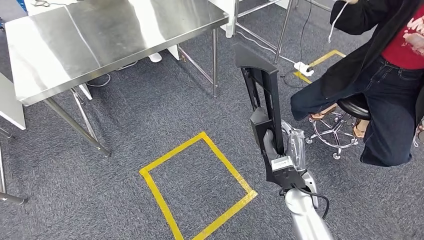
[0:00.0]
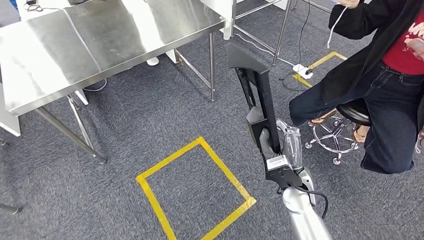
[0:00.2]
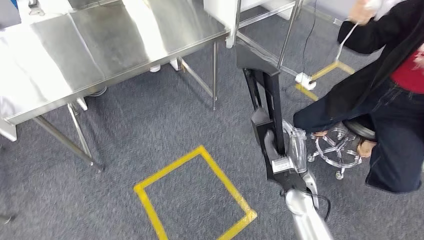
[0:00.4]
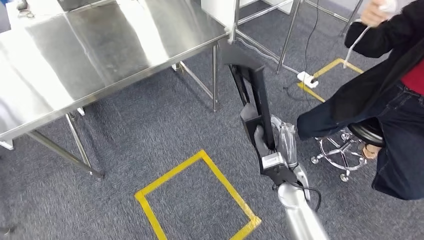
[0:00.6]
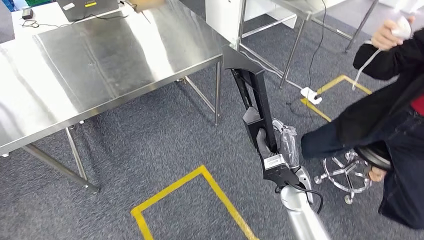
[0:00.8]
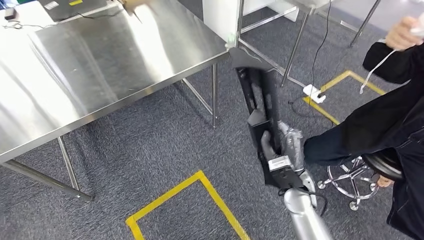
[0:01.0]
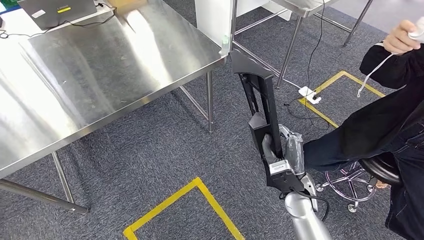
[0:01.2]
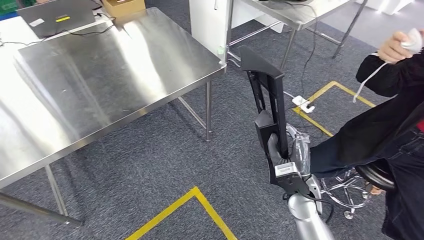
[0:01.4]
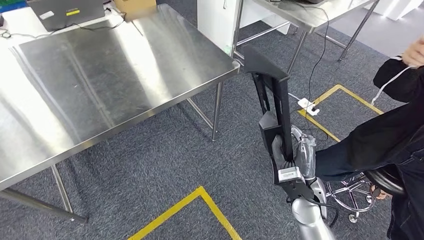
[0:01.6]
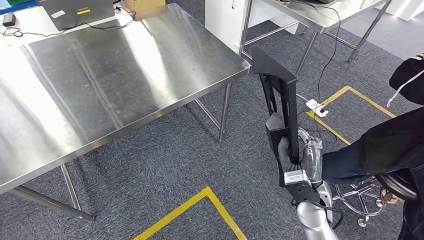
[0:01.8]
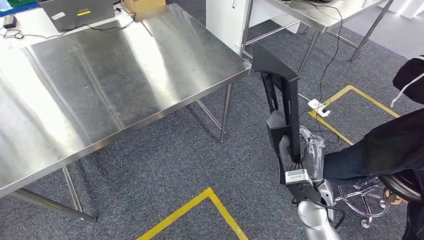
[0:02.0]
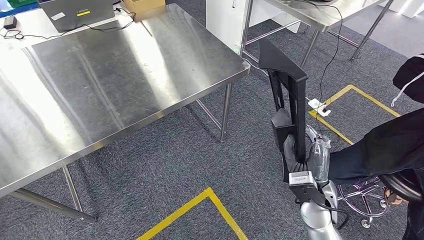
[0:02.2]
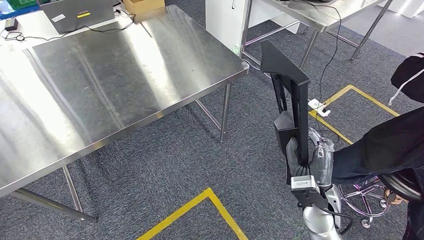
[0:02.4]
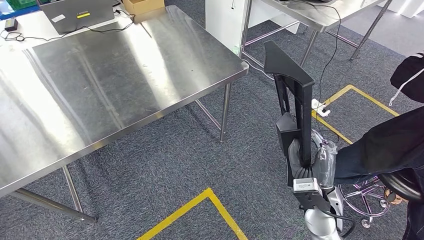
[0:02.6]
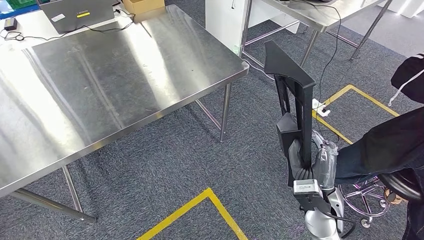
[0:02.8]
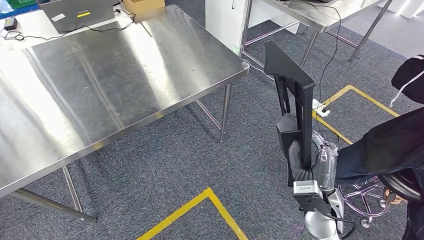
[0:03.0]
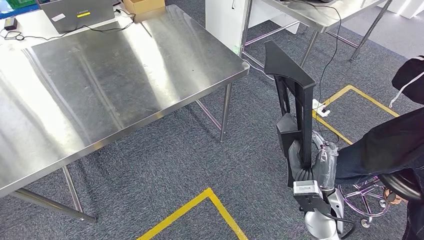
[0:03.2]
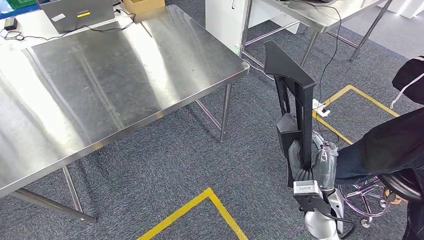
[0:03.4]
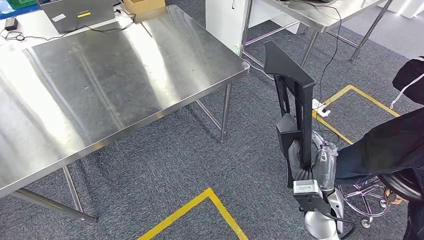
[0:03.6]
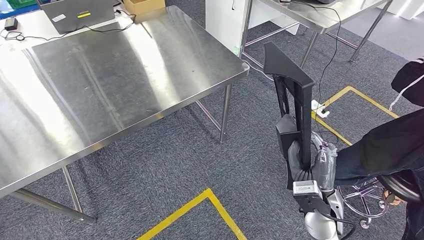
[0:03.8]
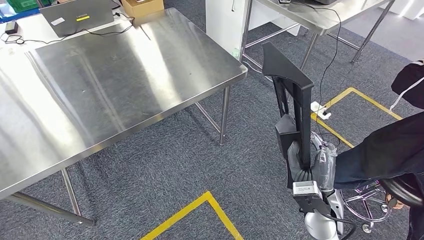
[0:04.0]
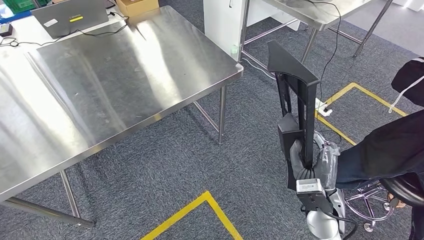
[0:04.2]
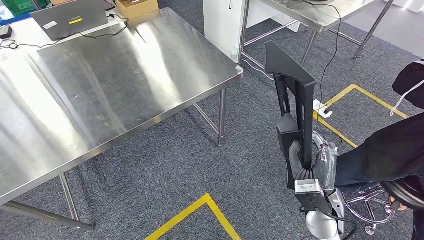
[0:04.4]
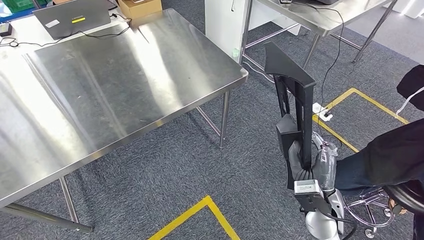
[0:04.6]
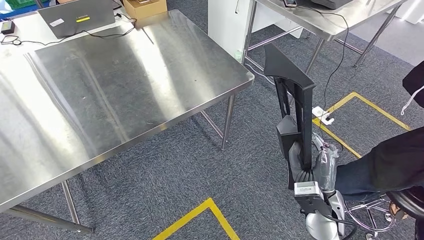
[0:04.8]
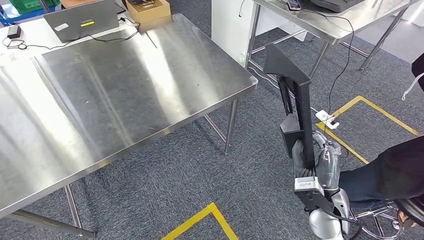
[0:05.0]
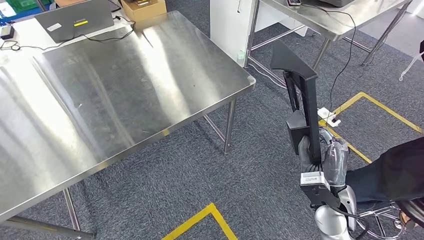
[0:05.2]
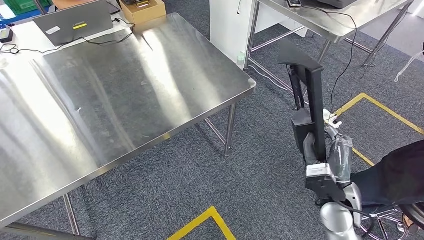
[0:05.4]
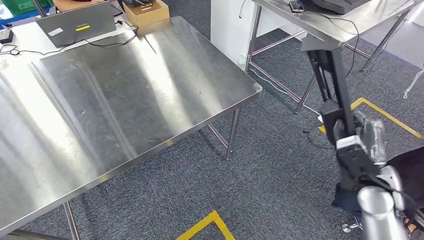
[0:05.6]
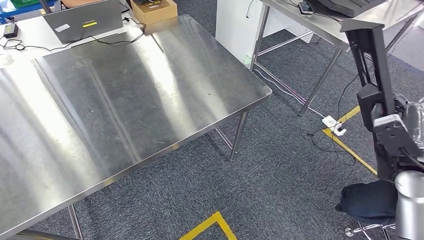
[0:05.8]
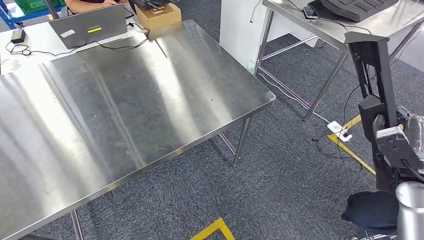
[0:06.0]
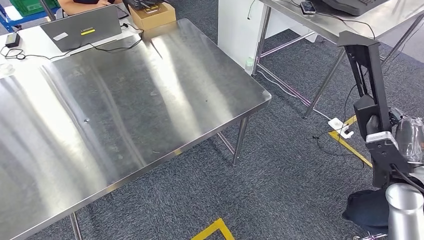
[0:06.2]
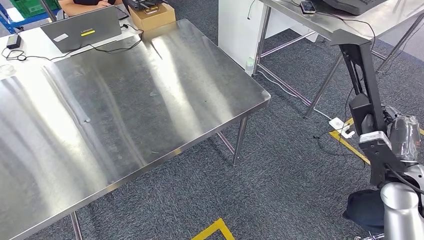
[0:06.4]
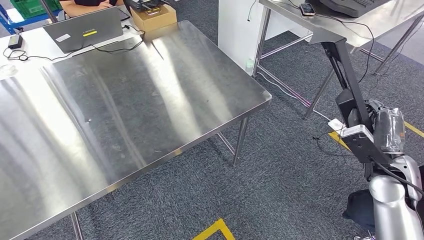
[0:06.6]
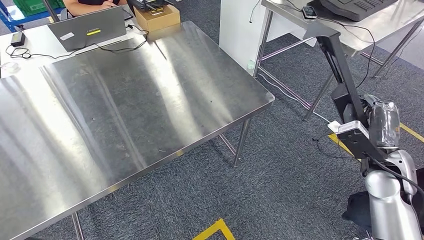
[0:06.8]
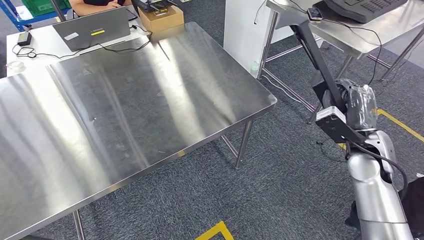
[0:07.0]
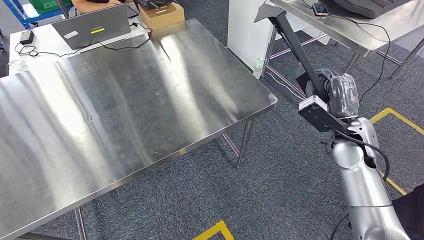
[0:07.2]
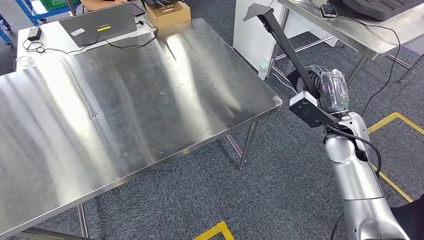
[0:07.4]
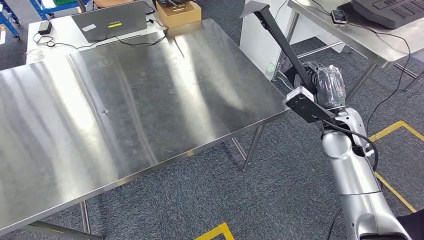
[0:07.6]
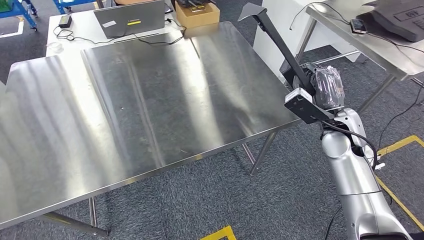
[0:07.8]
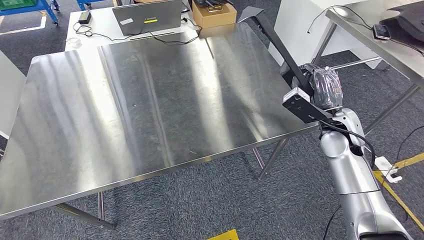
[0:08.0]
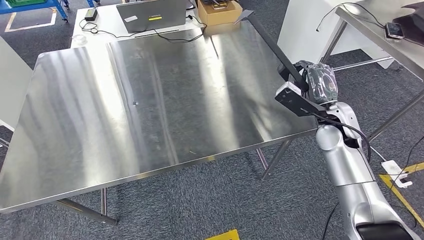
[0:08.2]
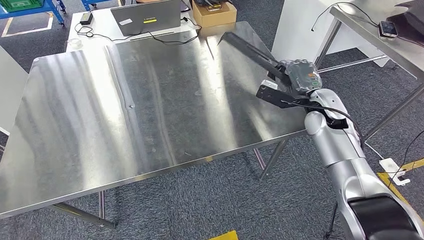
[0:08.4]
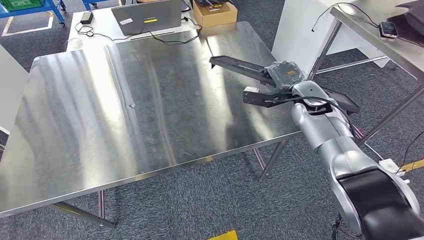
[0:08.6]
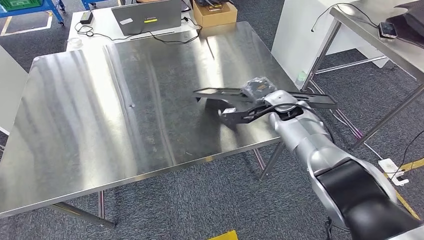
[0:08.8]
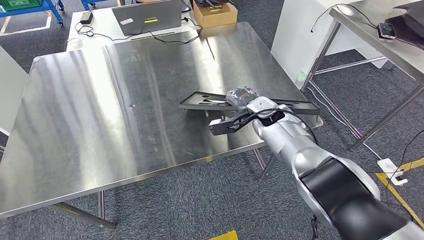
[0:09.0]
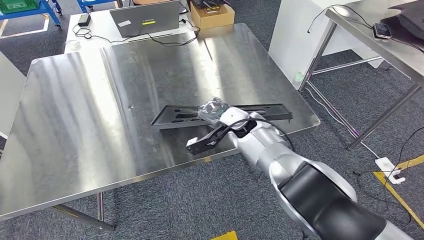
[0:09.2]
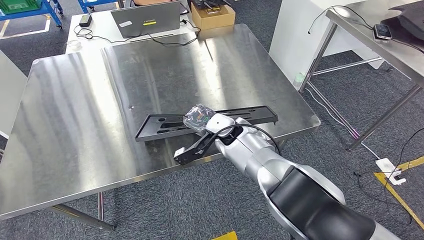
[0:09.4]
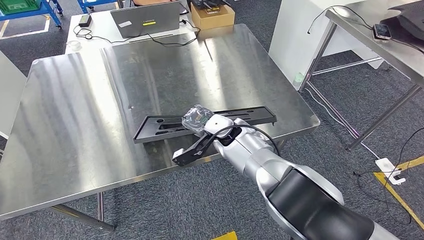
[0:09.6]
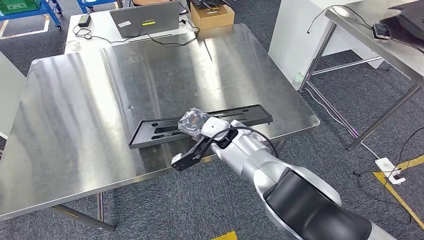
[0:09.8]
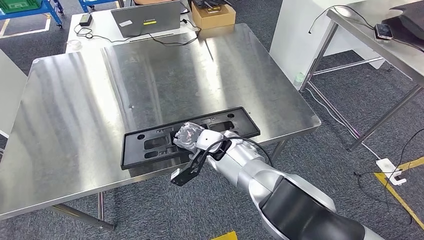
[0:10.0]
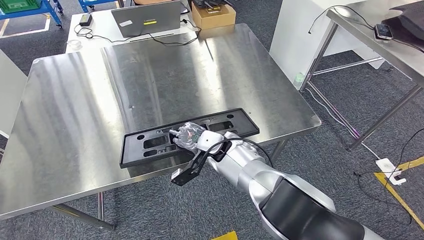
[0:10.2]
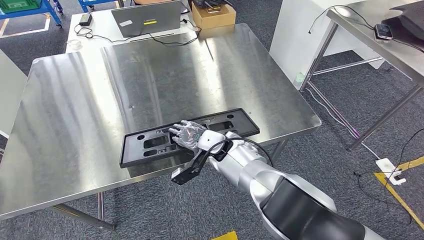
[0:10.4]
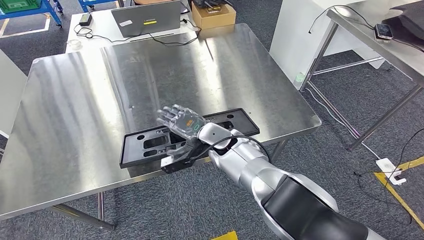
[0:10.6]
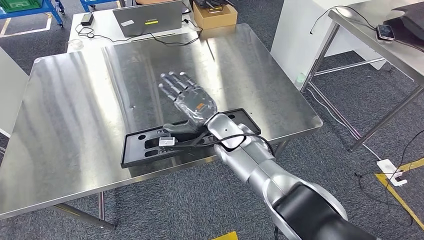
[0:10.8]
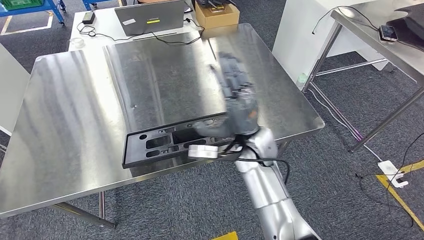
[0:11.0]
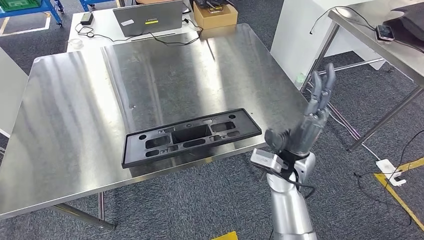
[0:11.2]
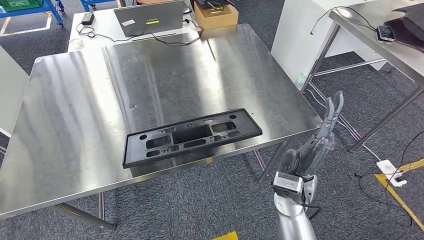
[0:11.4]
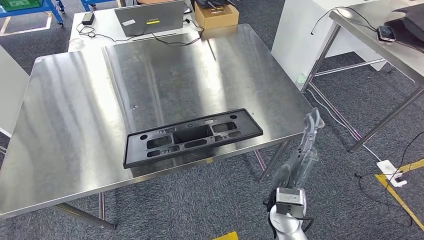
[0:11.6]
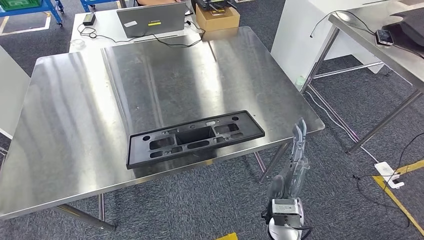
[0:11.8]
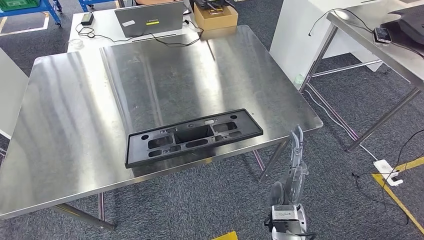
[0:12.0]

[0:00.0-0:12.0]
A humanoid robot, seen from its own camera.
Step, 0:00.0 to 0:05.8: Move the large material to the workbench.
0:03.0 to 0:04.4: Both hands stay put.
0:10.4 to 0:12.0: The right hand heads backward and to the right, covering some 25 cm.

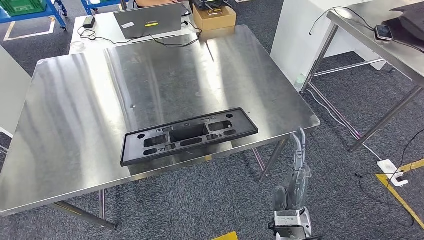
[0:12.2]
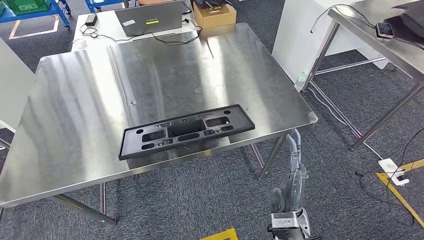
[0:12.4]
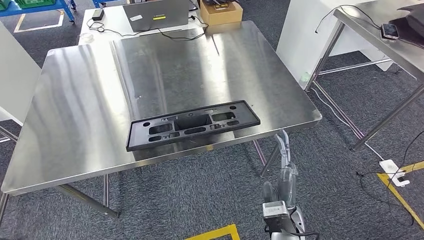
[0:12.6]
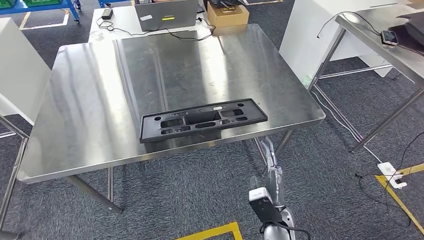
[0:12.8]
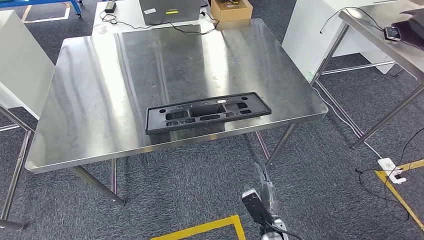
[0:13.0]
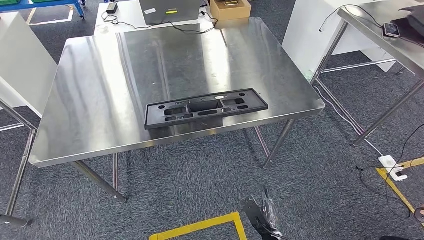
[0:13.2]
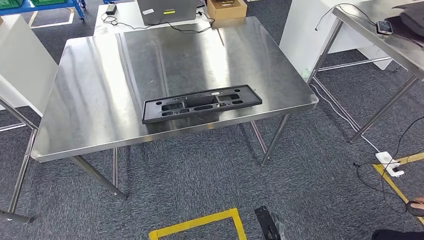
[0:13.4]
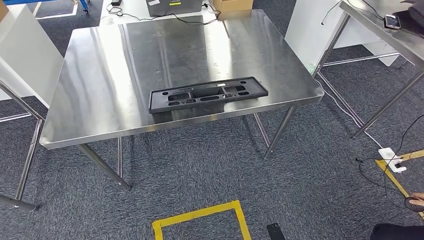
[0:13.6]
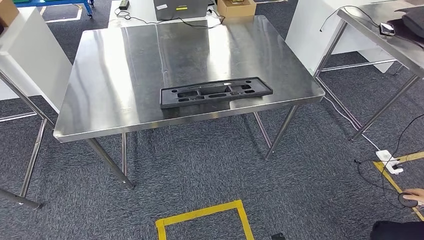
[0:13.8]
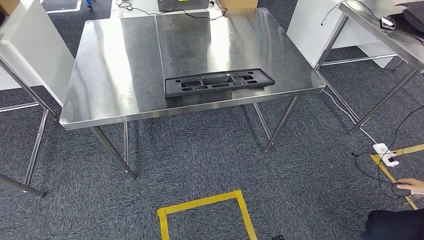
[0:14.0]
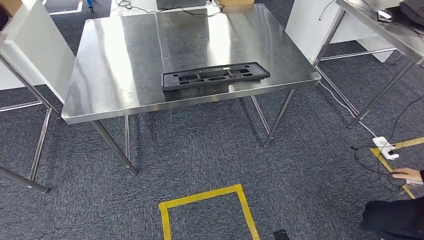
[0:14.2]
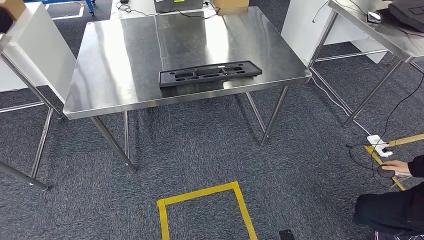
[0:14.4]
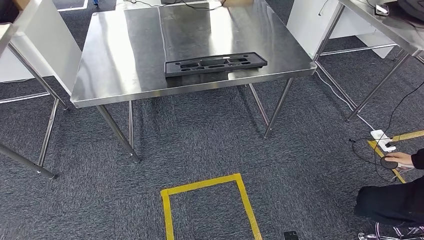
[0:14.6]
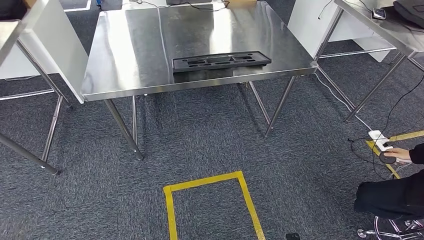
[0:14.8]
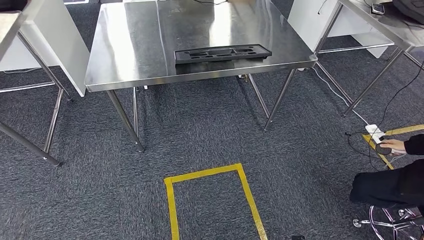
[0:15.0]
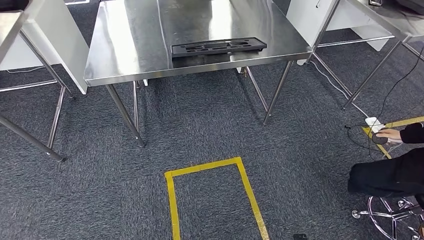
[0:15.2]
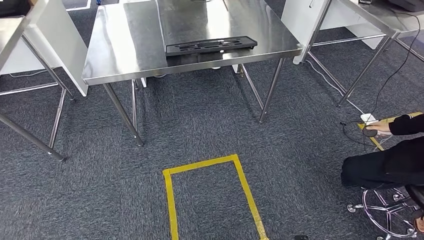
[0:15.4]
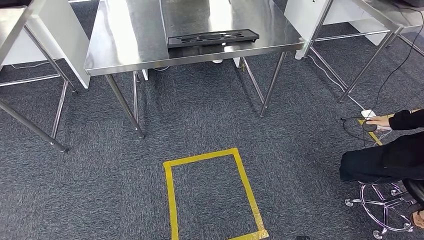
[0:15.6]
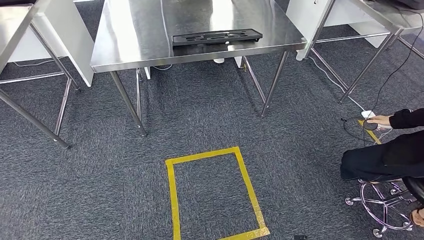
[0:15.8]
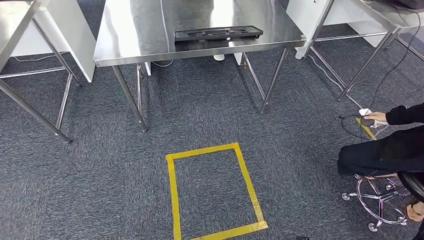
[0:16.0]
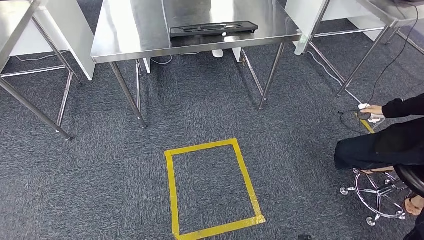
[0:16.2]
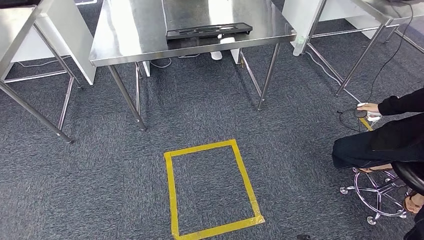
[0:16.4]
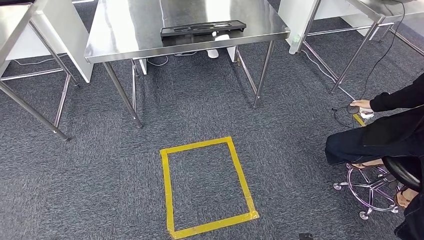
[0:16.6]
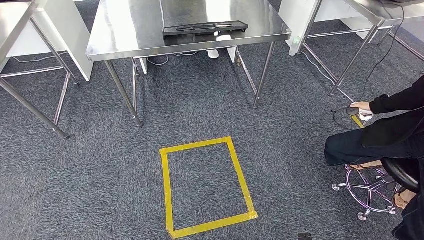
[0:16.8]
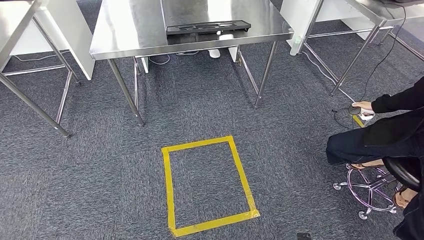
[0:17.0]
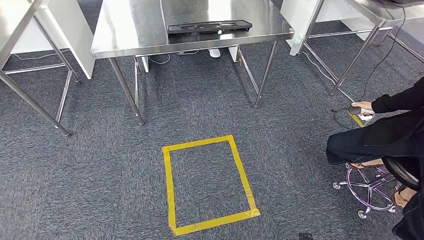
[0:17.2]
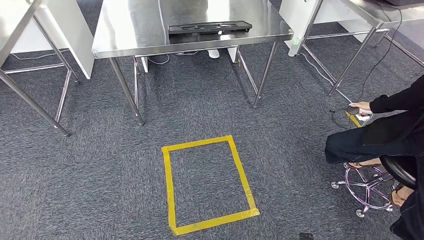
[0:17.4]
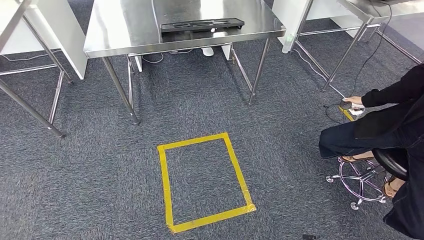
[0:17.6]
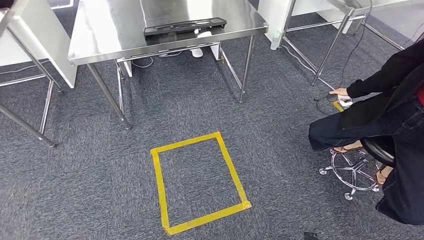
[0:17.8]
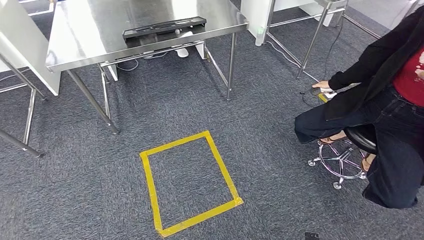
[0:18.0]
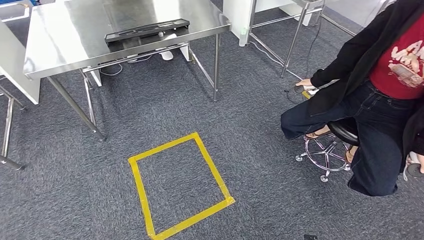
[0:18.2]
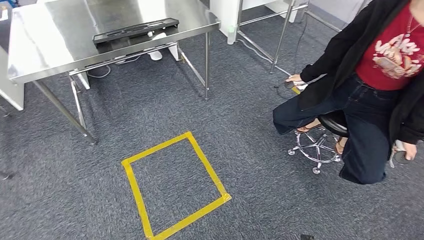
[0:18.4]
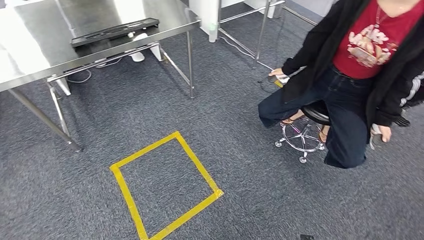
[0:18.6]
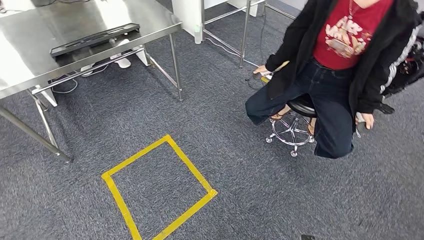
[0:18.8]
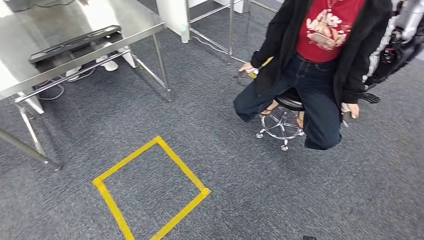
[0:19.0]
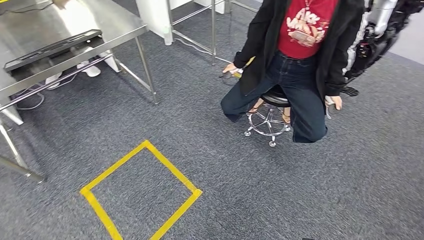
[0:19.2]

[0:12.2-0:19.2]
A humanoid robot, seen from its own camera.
Step, 0:12.2 to 0:14.2: Insert the large material into the corresponding slot on the workbench.
